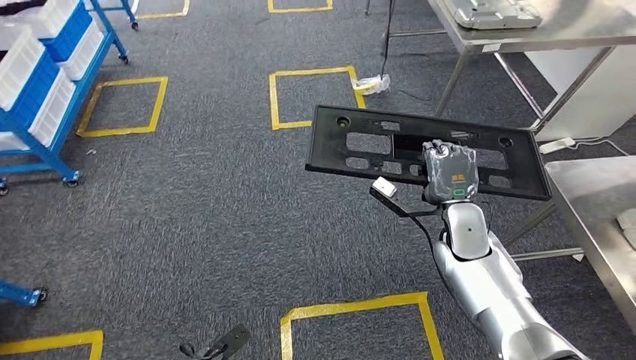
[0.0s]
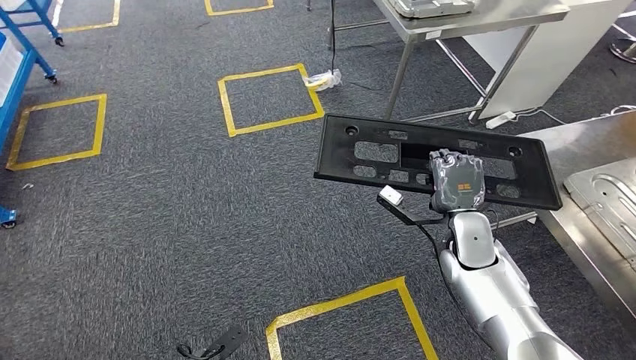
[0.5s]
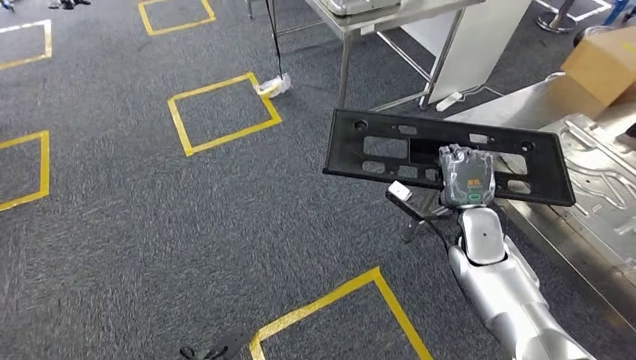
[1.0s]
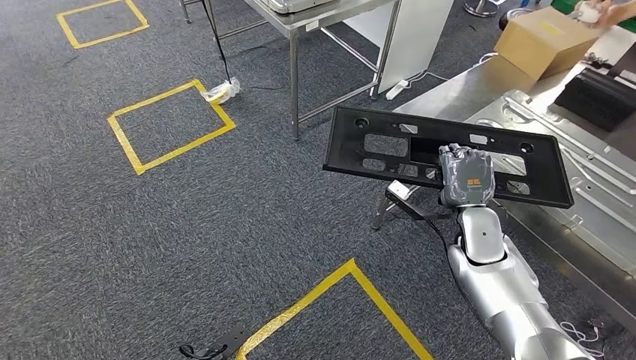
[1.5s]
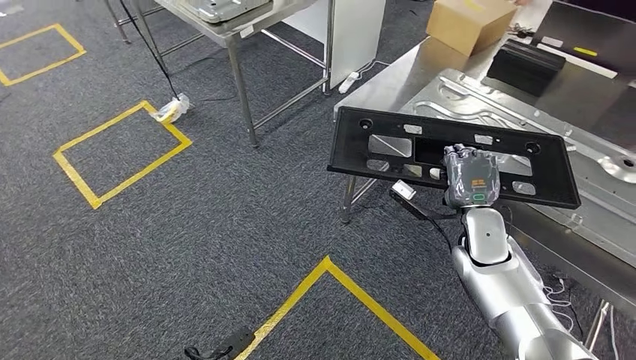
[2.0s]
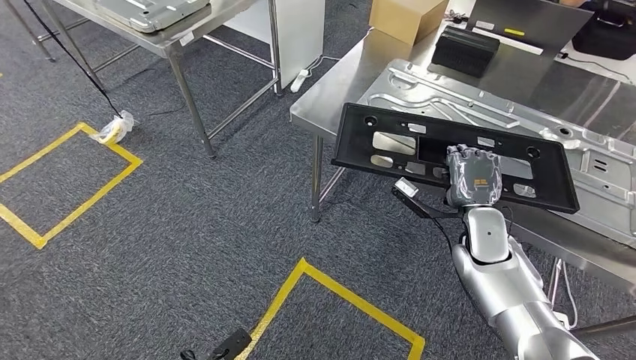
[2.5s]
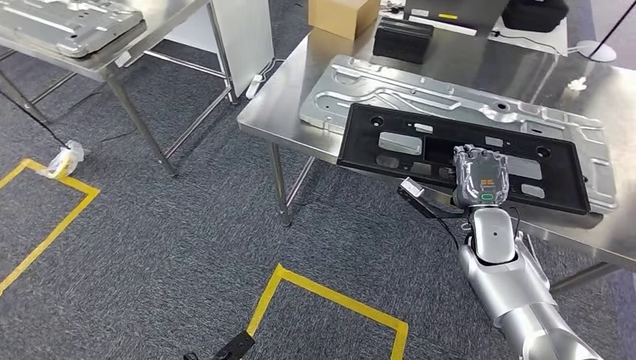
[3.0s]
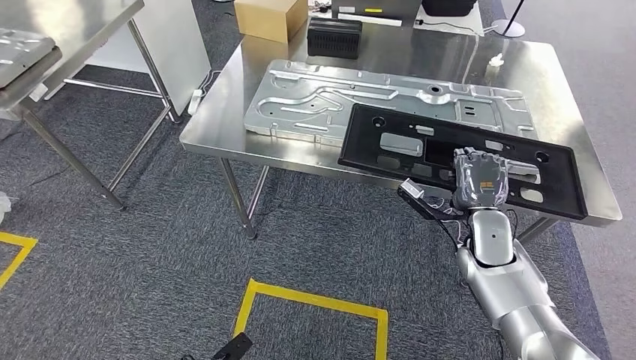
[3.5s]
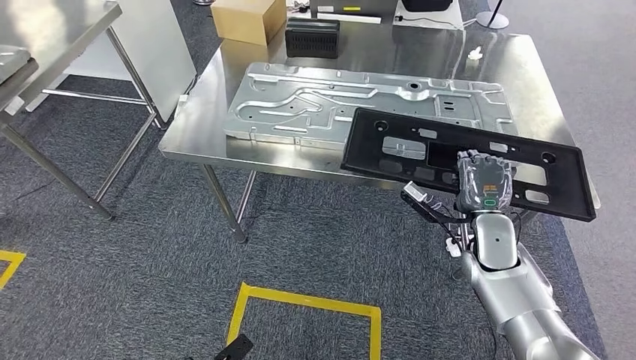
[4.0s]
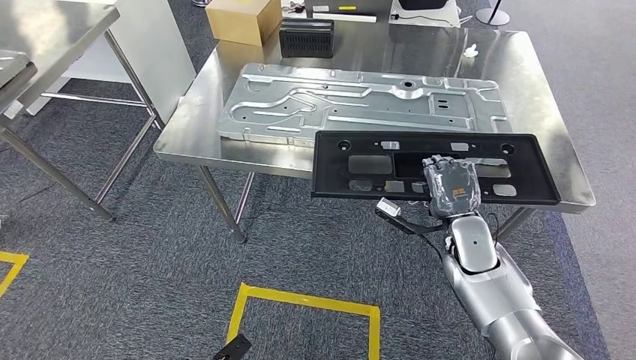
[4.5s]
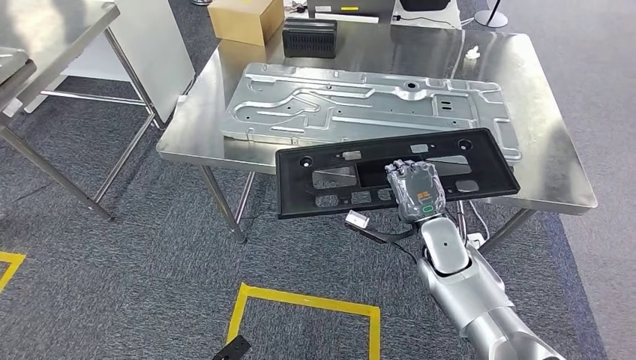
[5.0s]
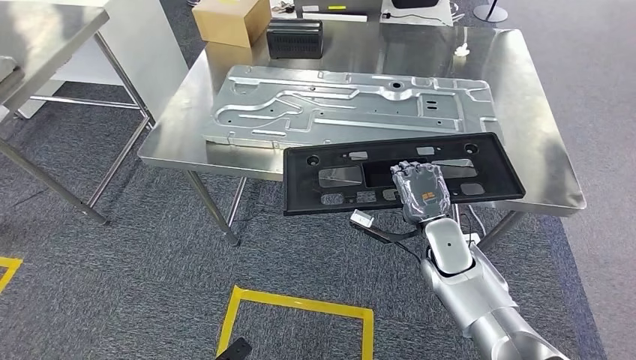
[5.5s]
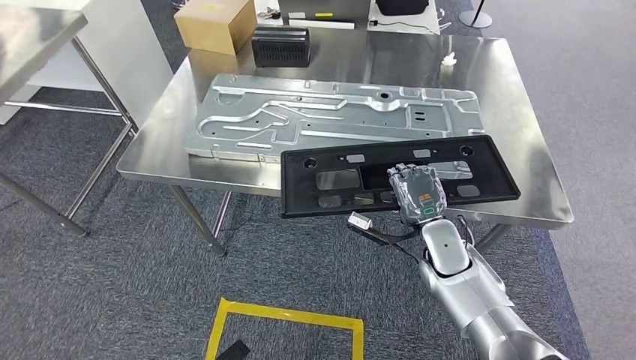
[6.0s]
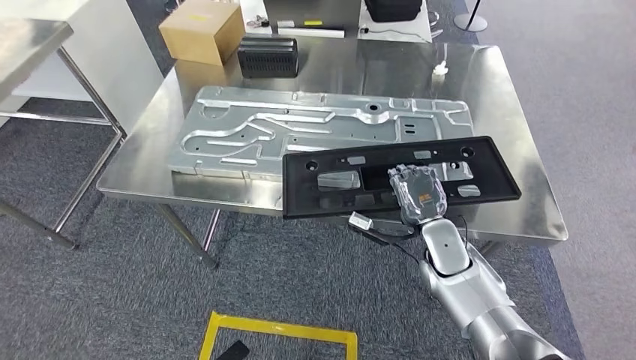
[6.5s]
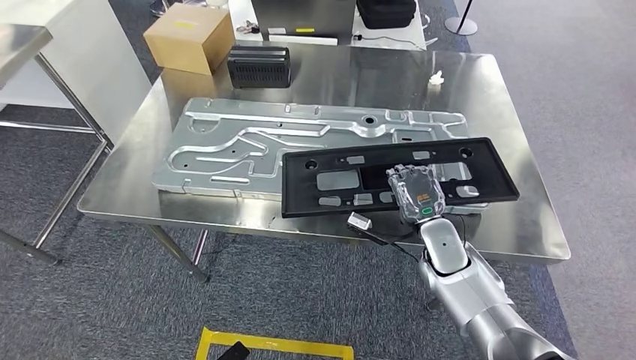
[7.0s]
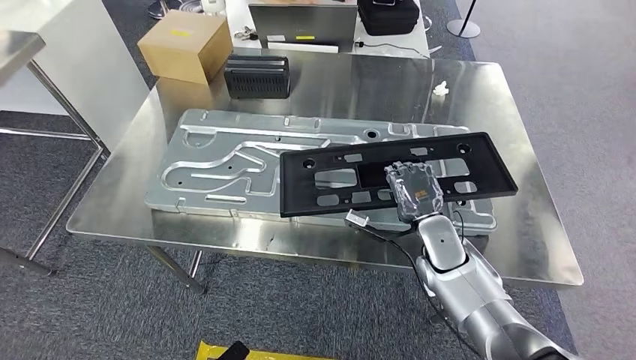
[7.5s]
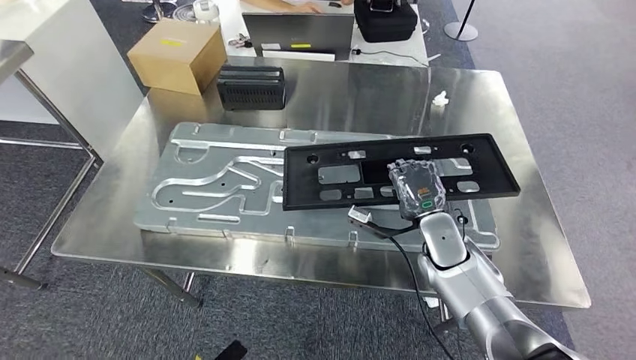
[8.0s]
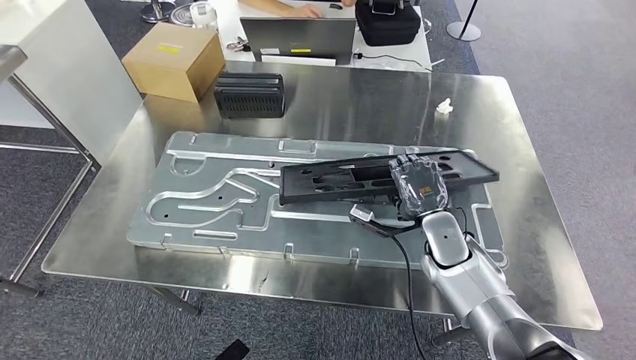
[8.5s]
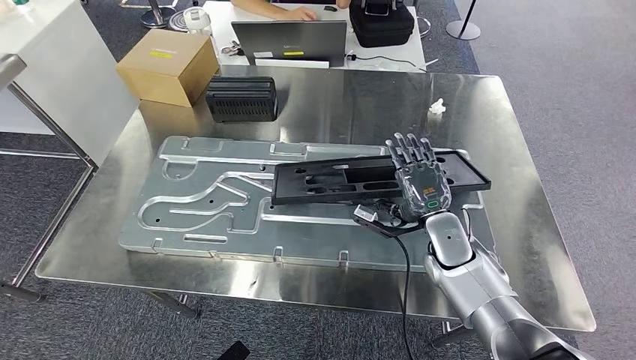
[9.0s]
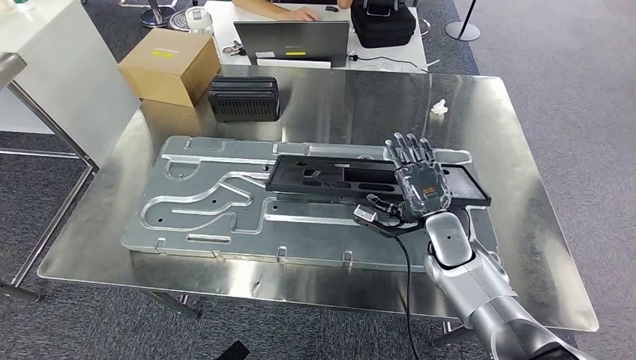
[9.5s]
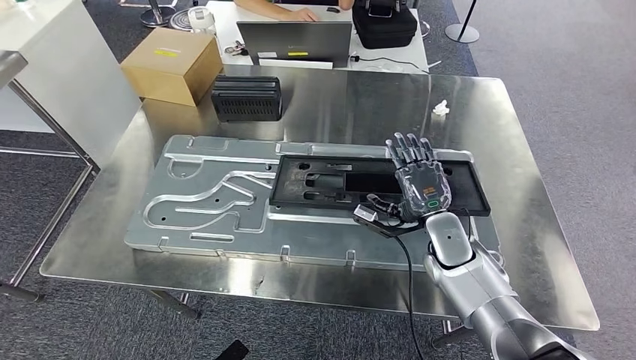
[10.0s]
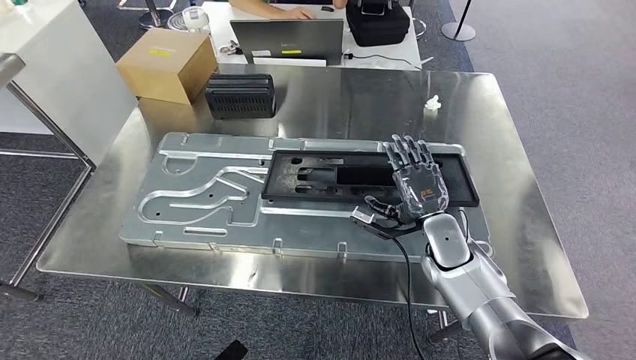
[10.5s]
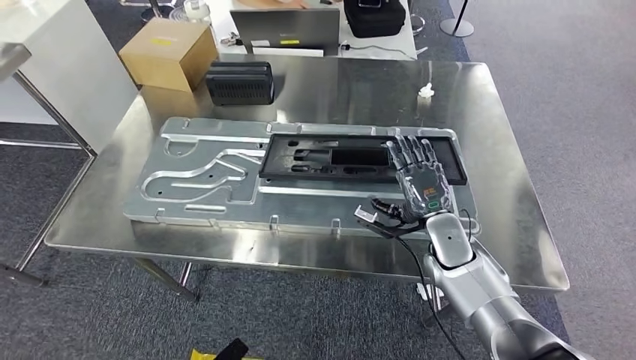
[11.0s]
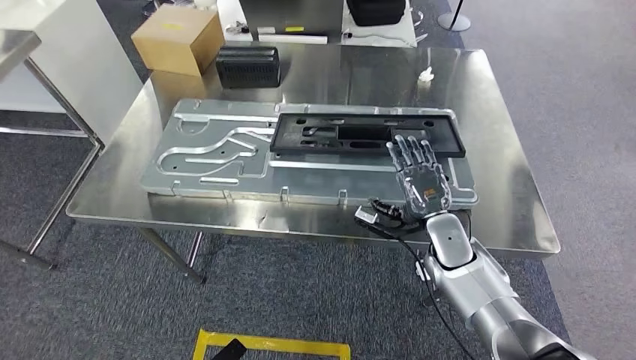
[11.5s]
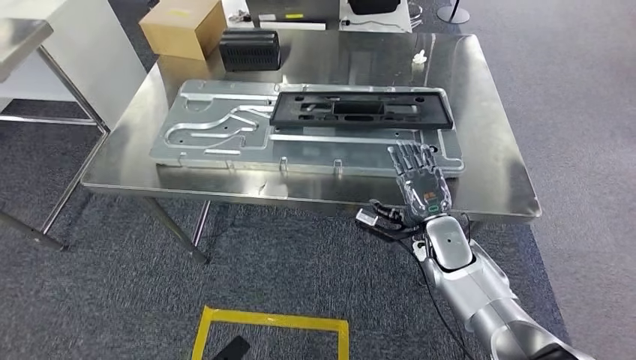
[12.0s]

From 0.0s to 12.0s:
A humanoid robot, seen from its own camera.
Step, from 0.0s to 2.5s: Move the large material to the workbench.
Step, from 4.0s to 11.5s: Insert the large material into the corresponding slot on the workbench.

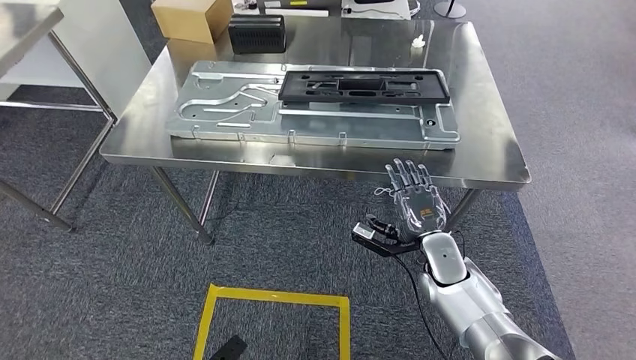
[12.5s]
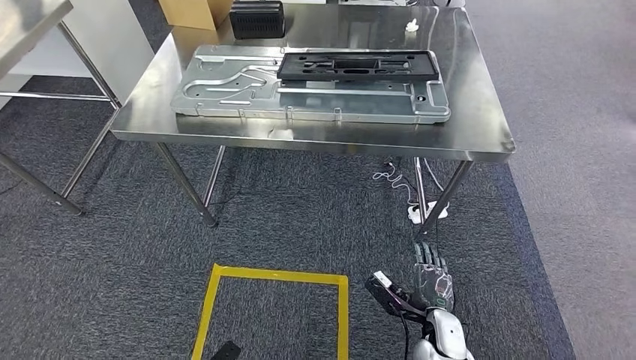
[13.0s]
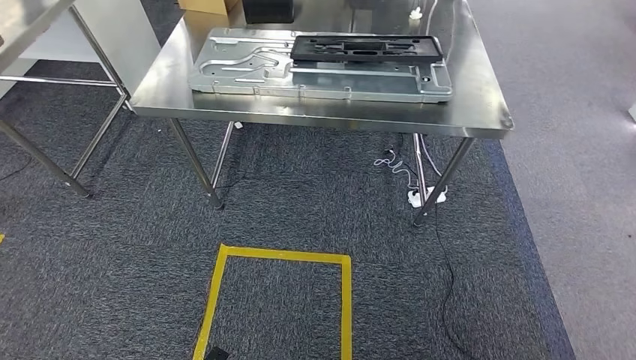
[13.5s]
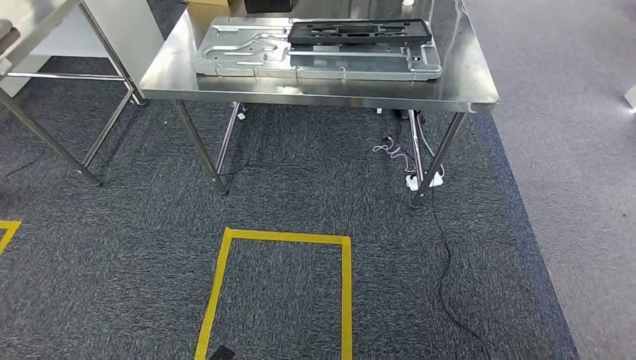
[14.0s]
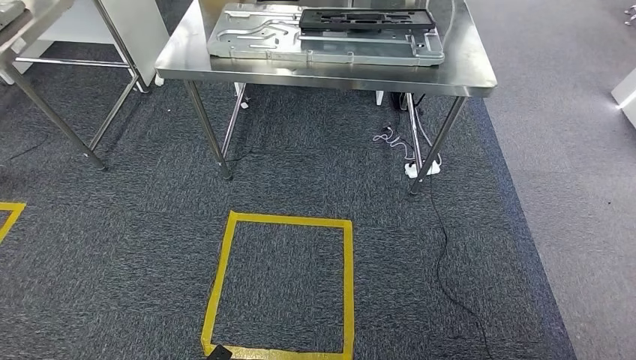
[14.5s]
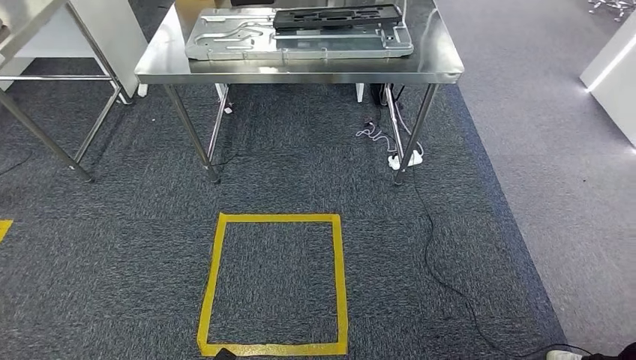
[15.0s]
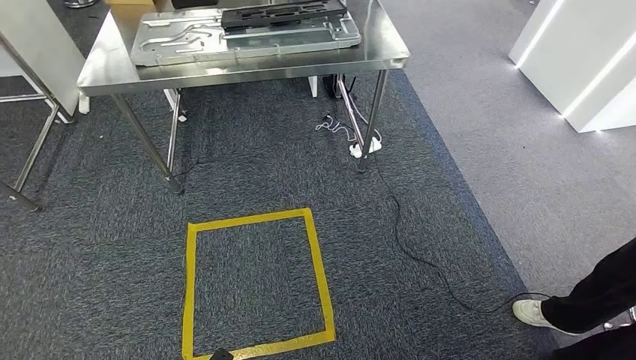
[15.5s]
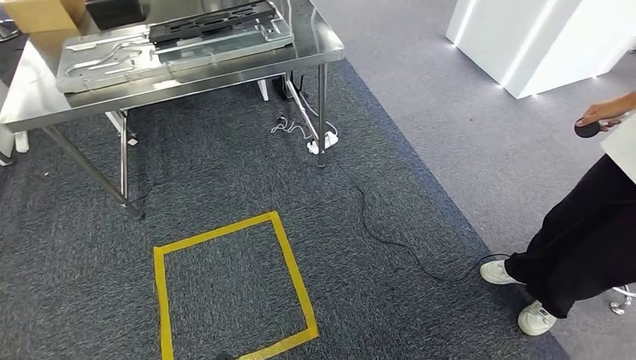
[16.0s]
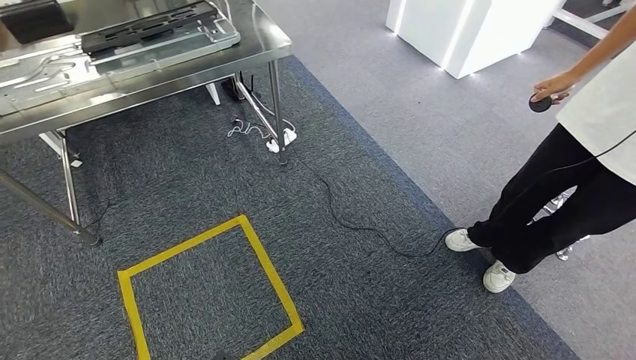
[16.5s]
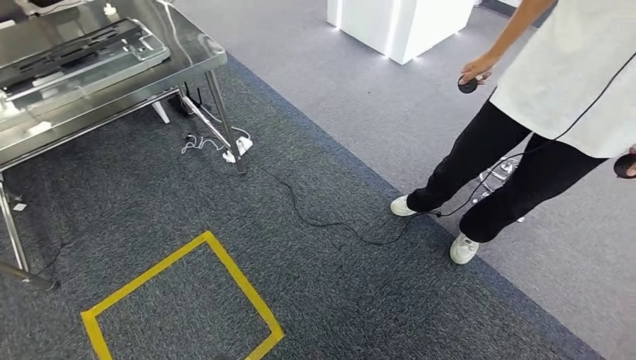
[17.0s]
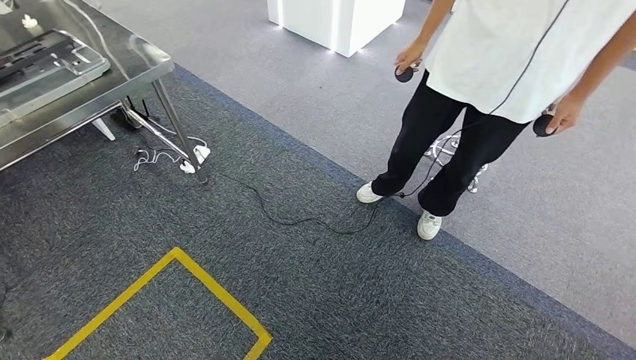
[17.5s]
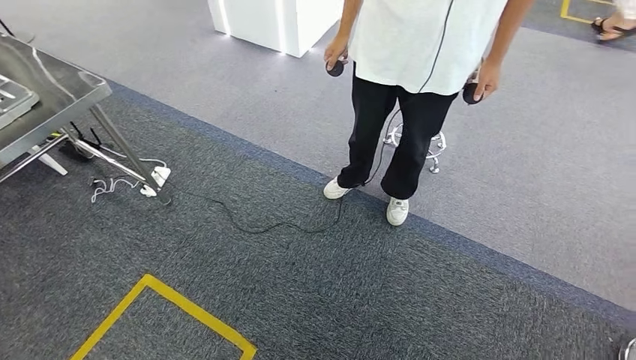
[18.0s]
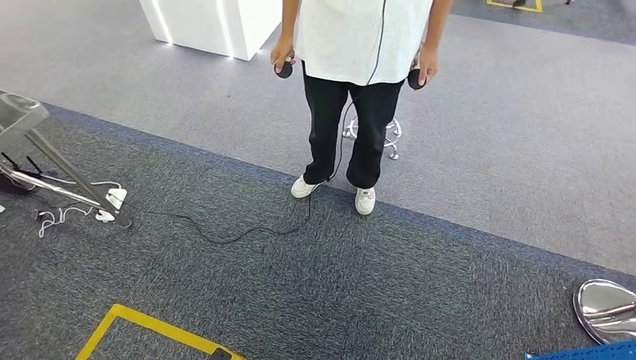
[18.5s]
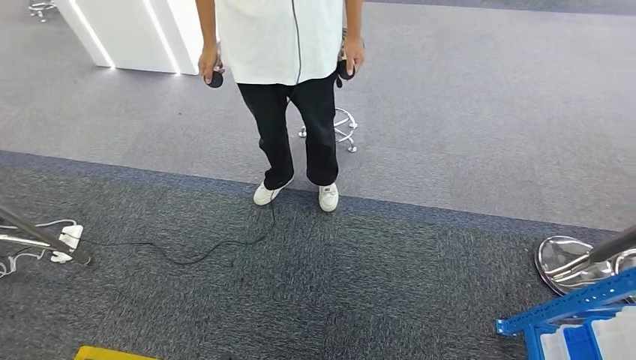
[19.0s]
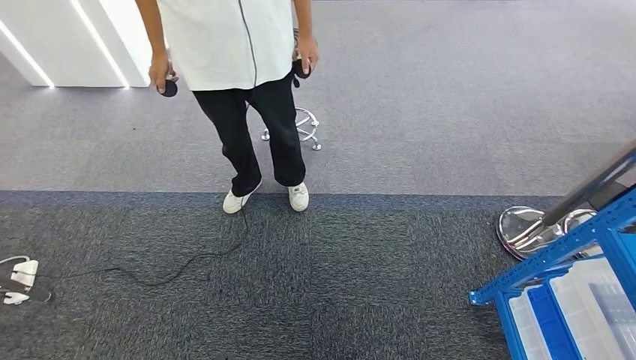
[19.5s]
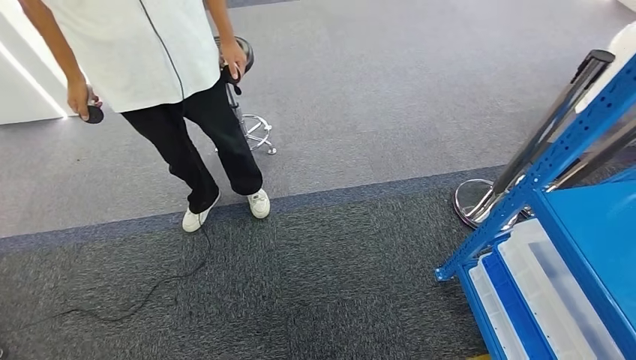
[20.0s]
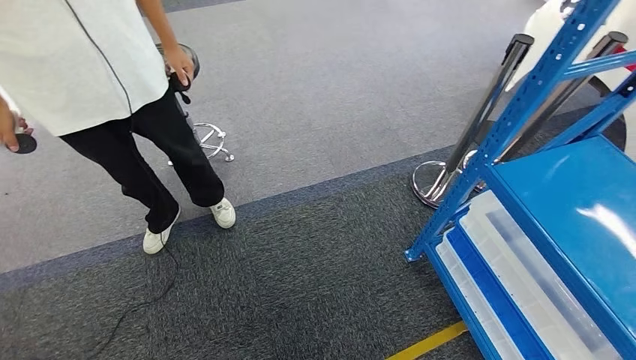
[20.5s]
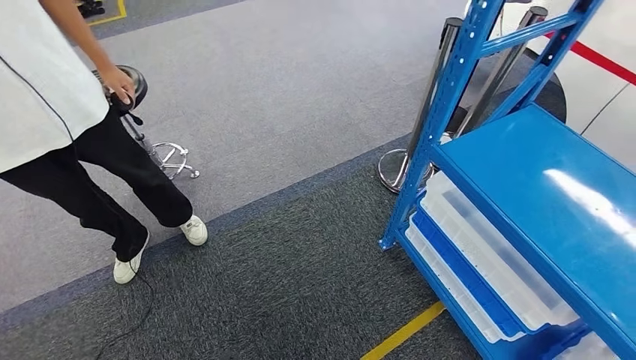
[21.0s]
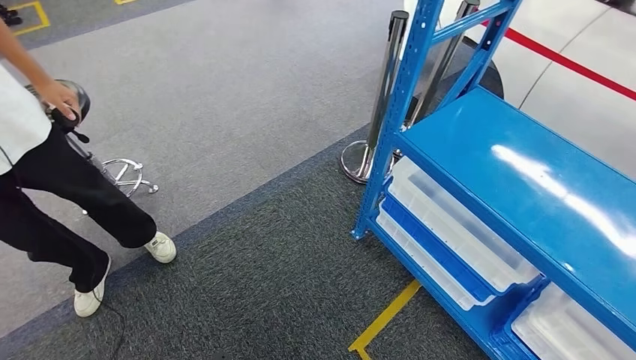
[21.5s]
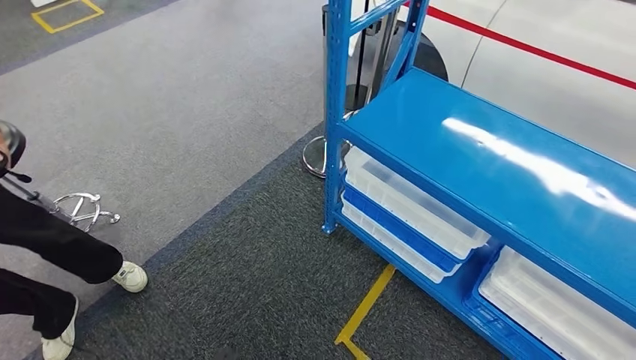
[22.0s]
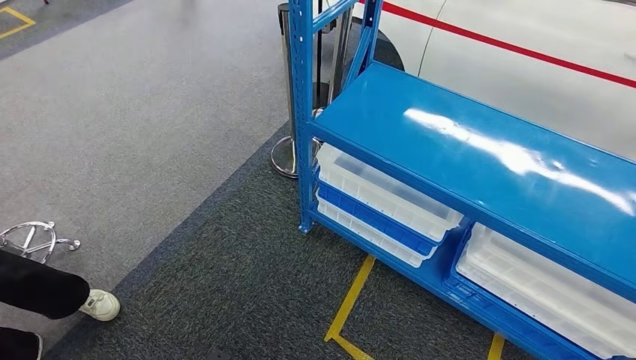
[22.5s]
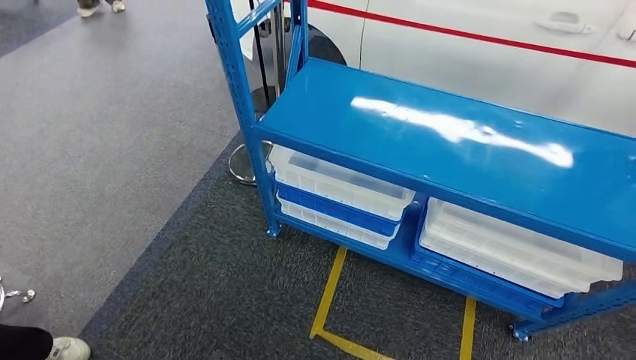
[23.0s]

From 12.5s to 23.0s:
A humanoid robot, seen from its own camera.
Step, from 12.5s to 23.0s: Move to the initial position of the shelf.
